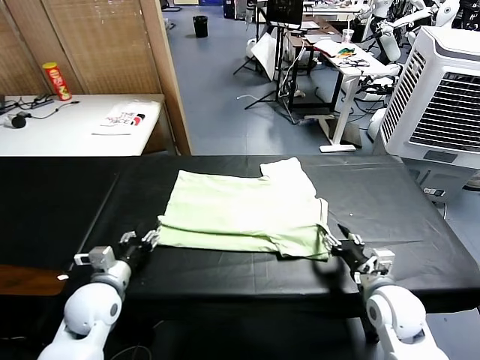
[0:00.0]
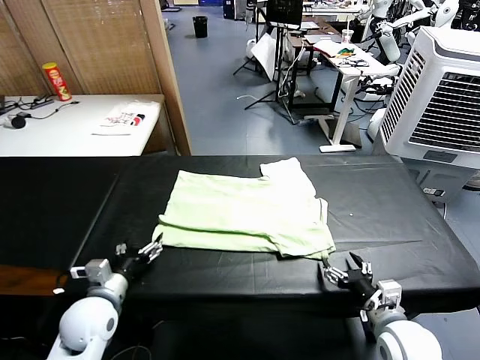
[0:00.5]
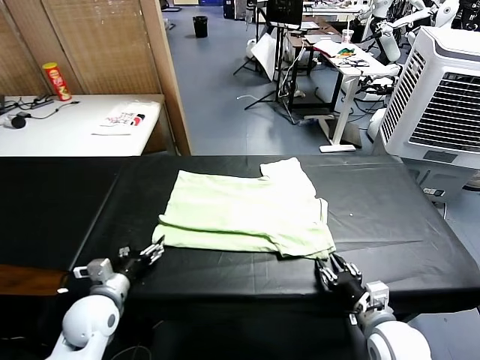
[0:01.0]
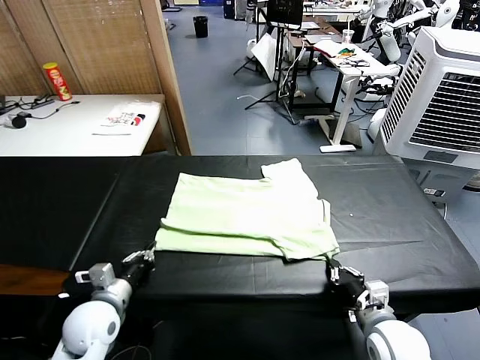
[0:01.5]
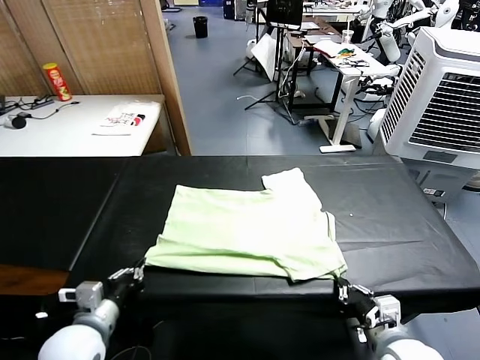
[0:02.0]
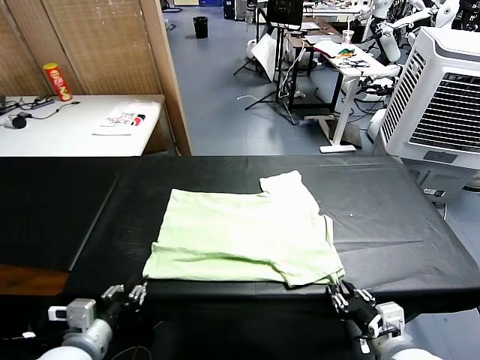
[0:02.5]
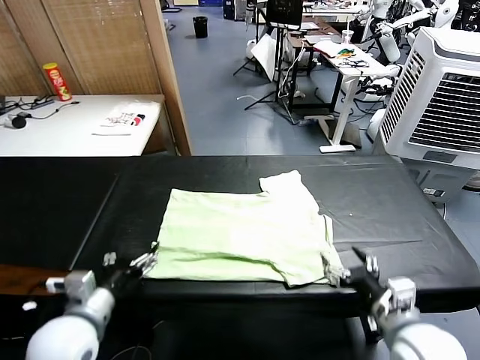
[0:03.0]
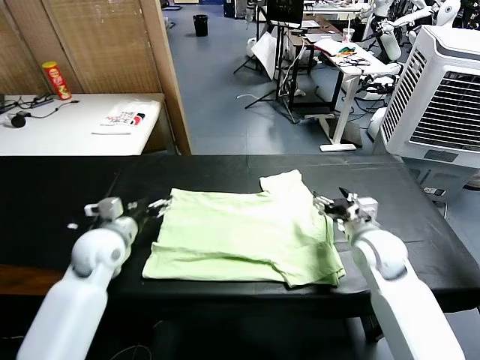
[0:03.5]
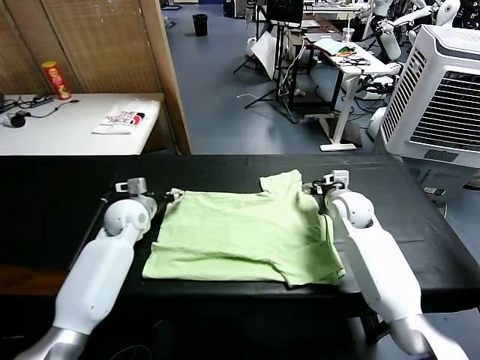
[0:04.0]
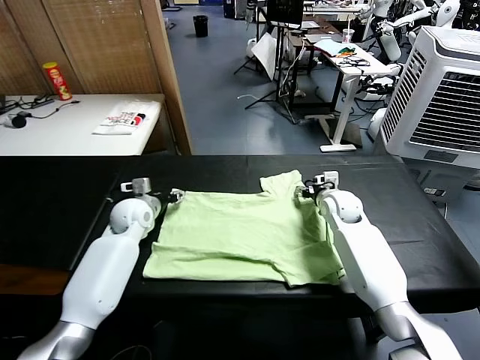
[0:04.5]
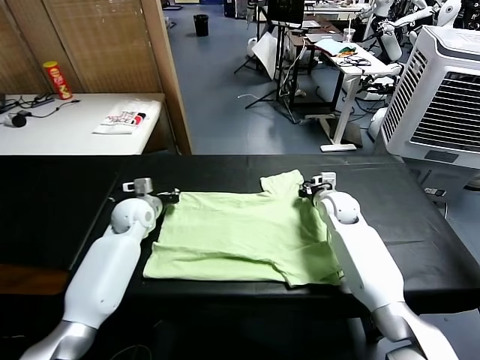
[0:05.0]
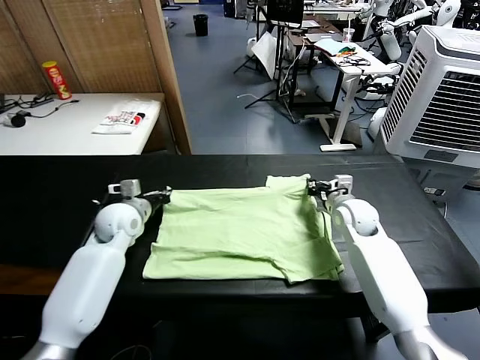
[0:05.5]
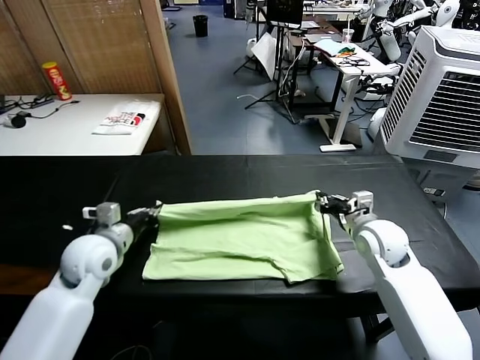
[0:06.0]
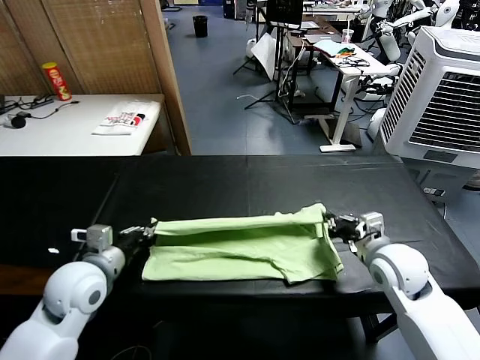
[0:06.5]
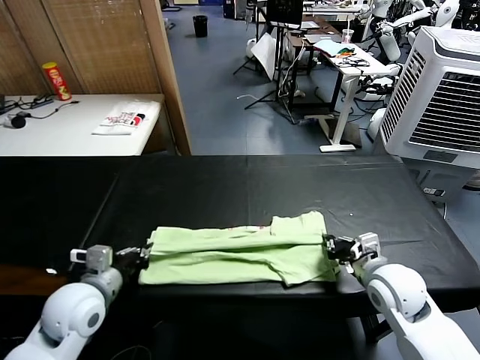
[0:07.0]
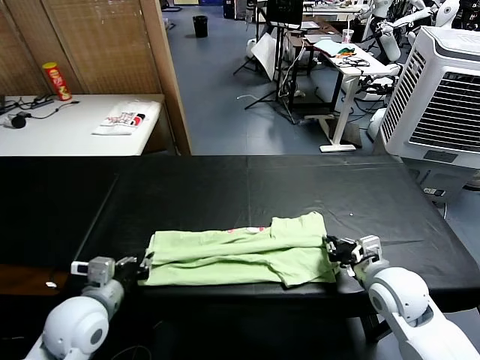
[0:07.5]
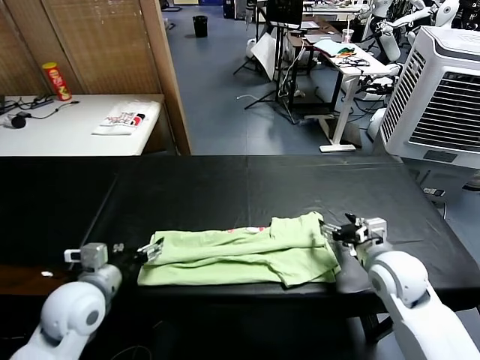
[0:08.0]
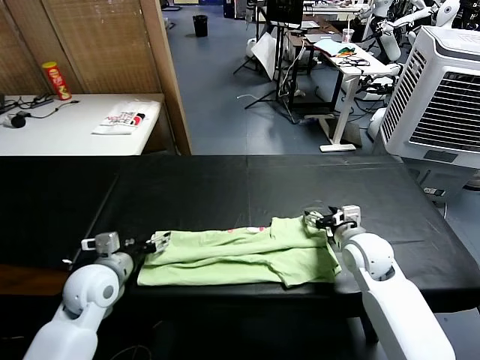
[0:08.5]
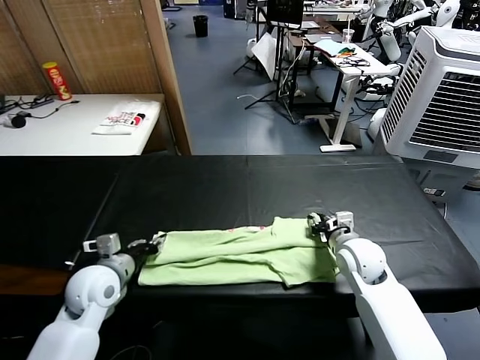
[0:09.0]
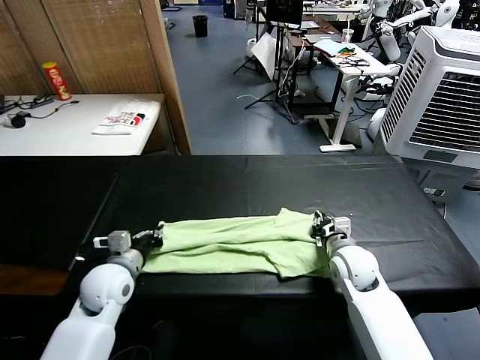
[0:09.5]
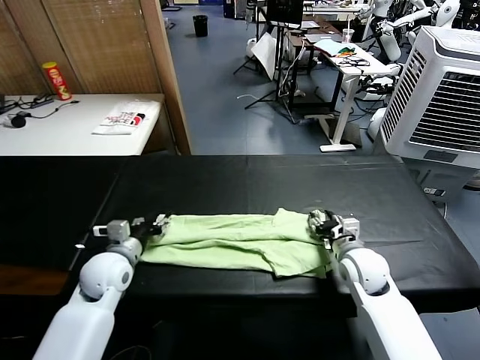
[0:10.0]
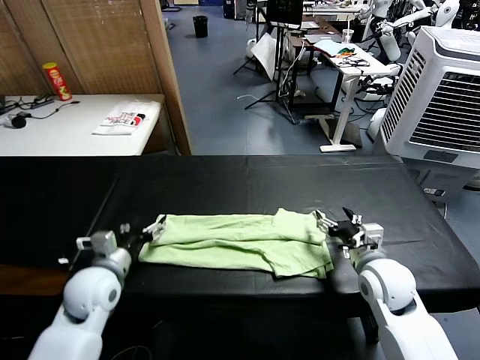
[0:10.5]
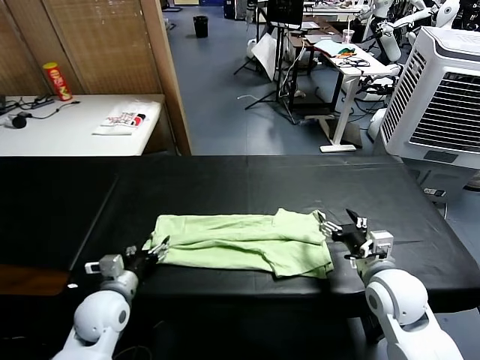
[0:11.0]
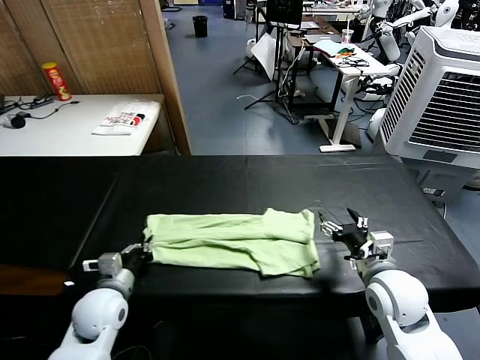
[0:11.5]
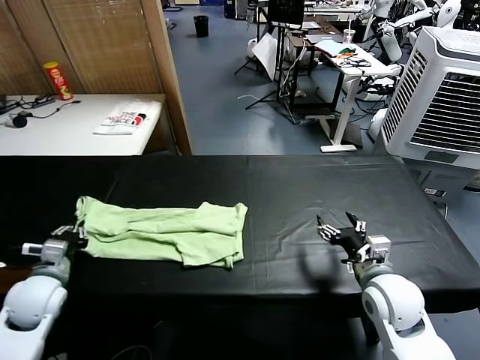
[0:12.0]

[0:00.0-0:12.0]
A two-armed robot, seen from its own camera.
Task of the whole recording: fold and organize the clothes.
Step, 0:00.5 to 0:02.5: Drag the clothes downward with both gripper.
Step, 0:03.0 to 0:05.0: use both grippers simultaneously to clamp the upper edge of the clothing fabric.
Step, 0:05.5 to 0:07.5: use both grippers to drag the upper edge of the fabric backward and fold it over the lower edge.
Step, 0:08.0 to 0:11.0: use the left gripper to clamp the left edge of the fabric.
0:00.0 to 0:02.0: The two grippers go approximately 10 cm backward. The right gripper closes. Meanwhile the left gripper closes.
0:02.0 to 0:04.0: Both grippers travel together forward, roughly 35 cm. The right gripper opens. The left gripper opens its fingers.
0:04.0 to 0:06.0: The two grippers go roughly 15 cm backward. The right gripper closes up; the left gripper closes.
0:06.0 to 0:08.0: The left gripper travels backward by some 10 cm, and opens up; the right gripper travels backward and back again, about 10 cm each way, and opens.
0:08.0 to 0:10.0: The left gripper heads forward and downward, covering roughly 10 cm, and closes, then opens again, while the right gripper closes, then reopens.
0:10.0 to 0:12.0: The right gripper heads backward, covering about 10 cm, while the left gripper goes roughly 15 cm to the left and backward, and closes up.

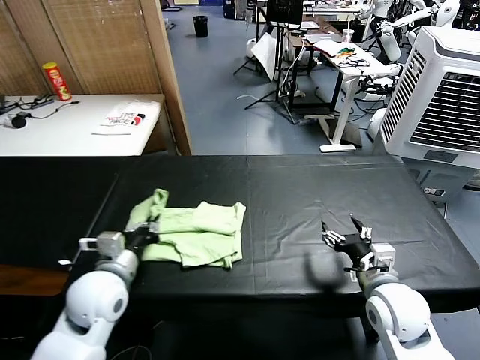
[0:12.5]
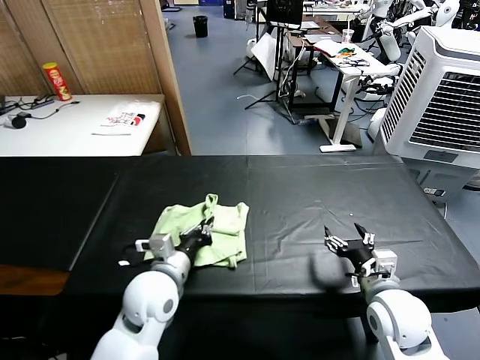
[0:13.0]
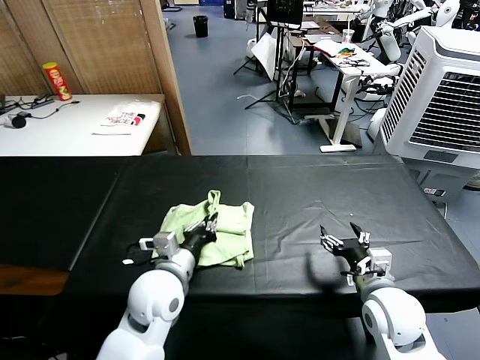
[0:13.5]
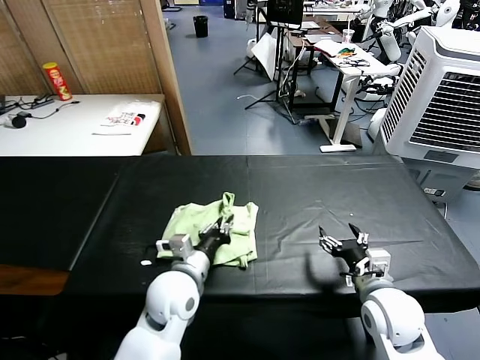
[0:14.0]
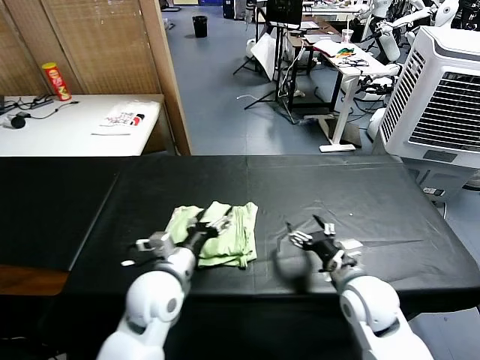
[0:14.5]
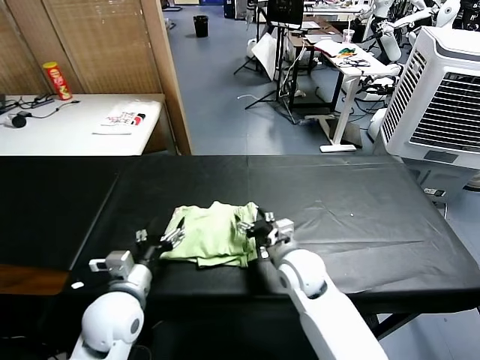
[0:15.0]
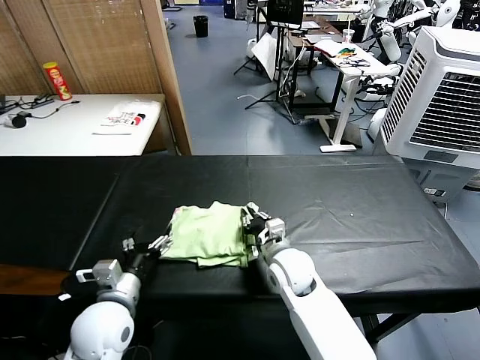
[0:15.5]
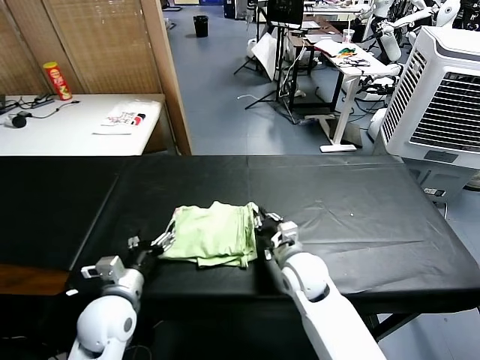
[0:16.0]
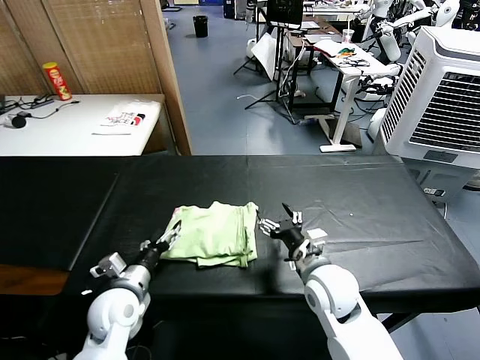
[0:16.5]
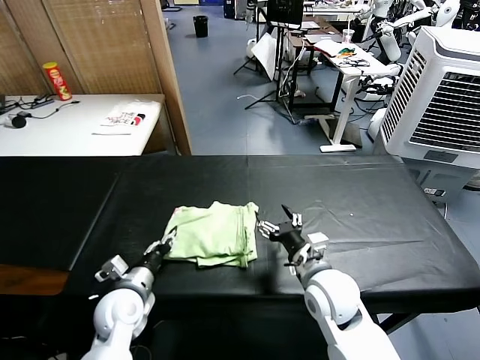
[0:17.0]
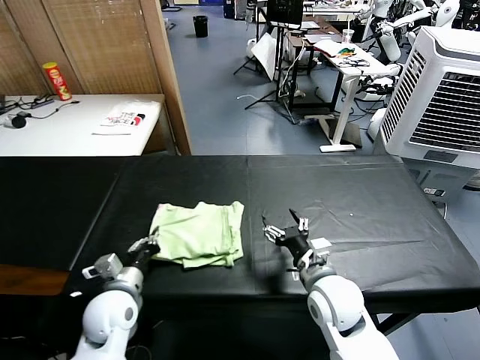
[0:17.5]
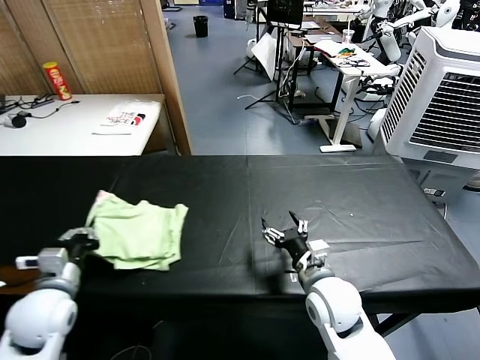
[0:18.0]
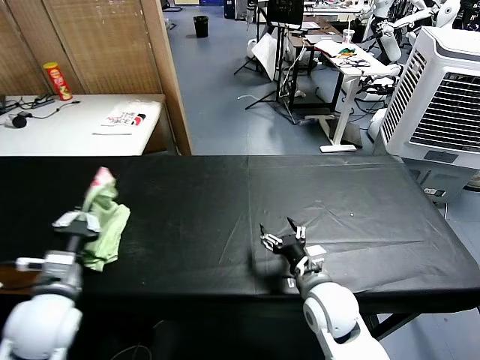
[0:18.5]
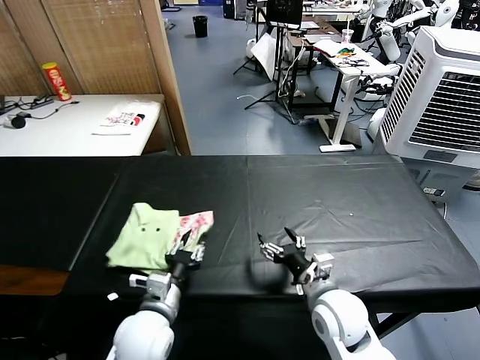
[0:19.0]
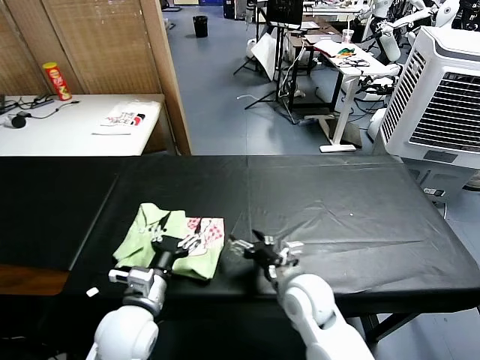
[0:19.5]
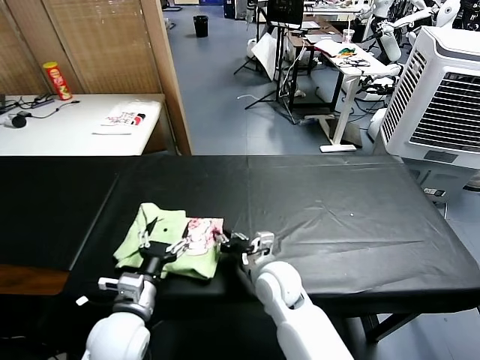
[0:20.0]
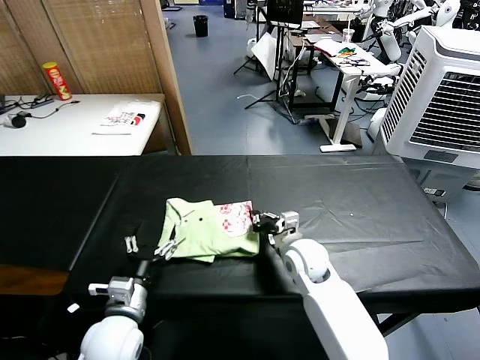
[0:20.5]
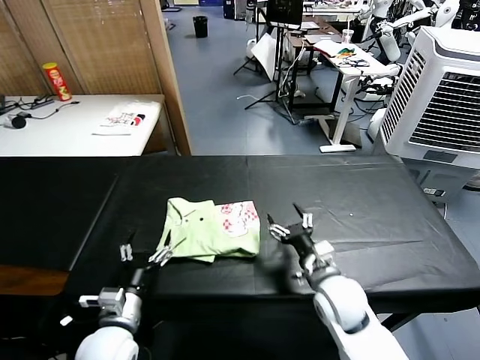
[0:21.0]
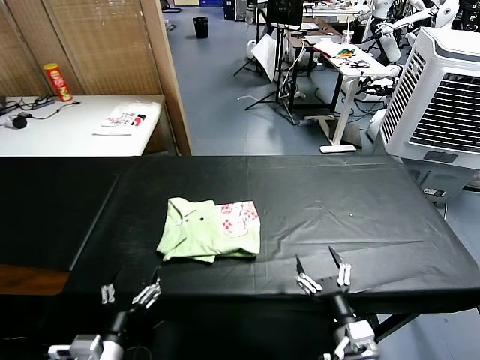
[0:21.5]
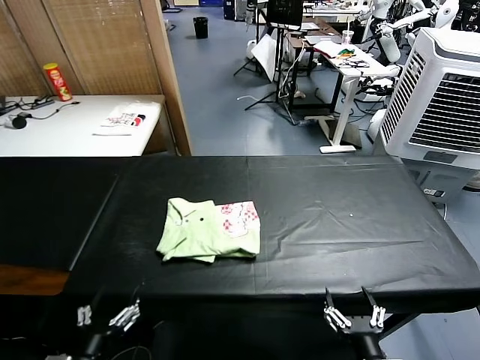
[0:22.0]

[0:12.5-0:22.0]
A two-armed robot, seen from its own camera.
Task of the whole recording: fold and organize the clothes.
Step, 0:12.5 to 0:14.0: use the left gripper to drag the left edge of the fabric to the left and folds it over the right edge.
Step, 0:14.5 to 0:19.0: Flip the folded clothes over with left gripper.
Step, 0:19.5 to 0:20.5: Drag the clothes to the center of the table.
0:12.5 to 0:14.5: The right gripper is displaced to the left by about 5 cm; the left gripper shifts approximately 10 cm to the right, and opens.
0:14.5 to 0:16.5: The right gripper heads to the left, covering approximately 5 cm, and closes and opens again; the left gripper moves to the left and downward, approximately 10 cm.
0:16.5 to 0:18.0: The left gripper goes some 10 cm to the left and upward, and closes.
0:18.0 to 0:20.0: The right gripper shifts about 10 cm to the left and forward, and closes, while the left gripper heads to the right, covering some 15 cm, and opens.
0:20.0 to 0:22.0: The left gripper goes roughly 15 cm backward. Meanwhile the right gripper shifts about 30 cm backward and to the right, and opens its fingers.
